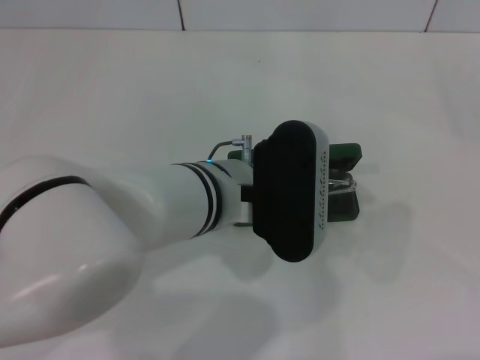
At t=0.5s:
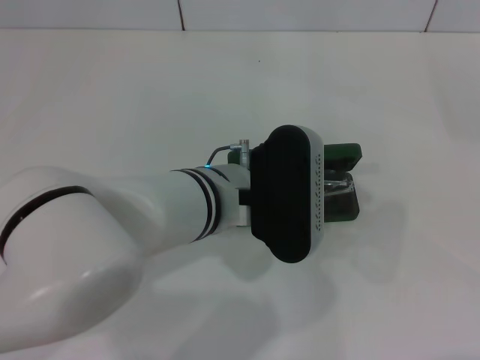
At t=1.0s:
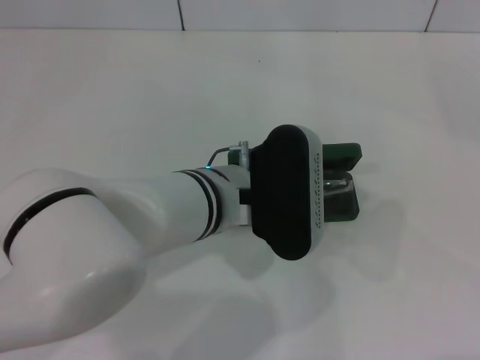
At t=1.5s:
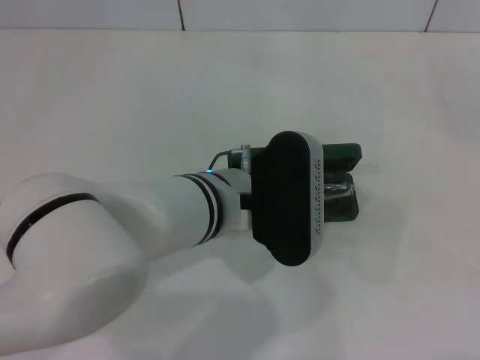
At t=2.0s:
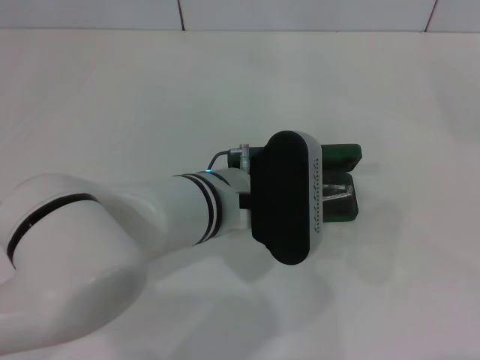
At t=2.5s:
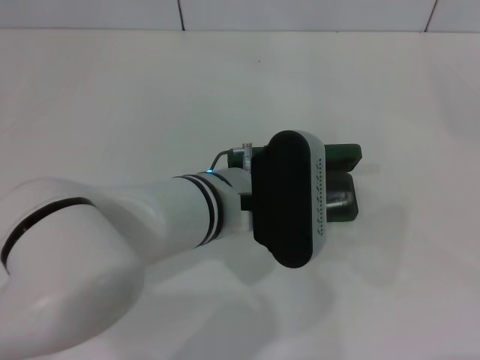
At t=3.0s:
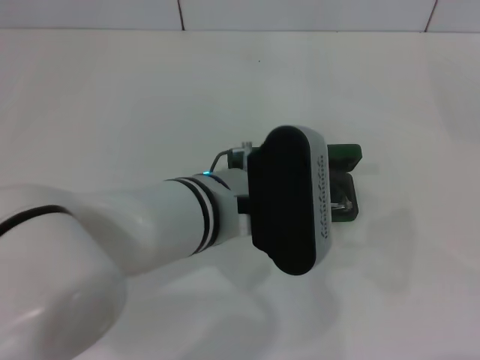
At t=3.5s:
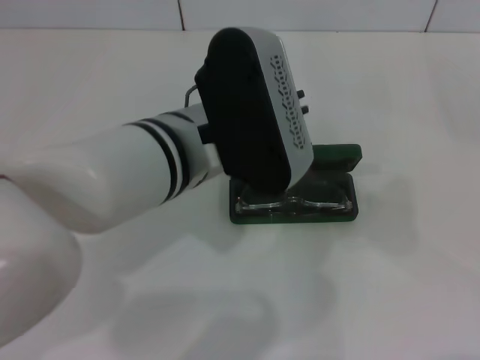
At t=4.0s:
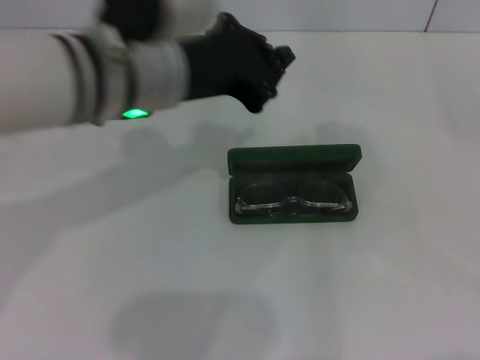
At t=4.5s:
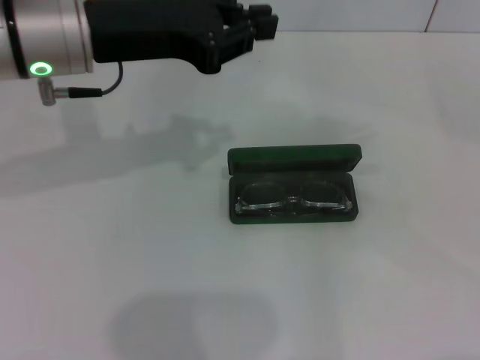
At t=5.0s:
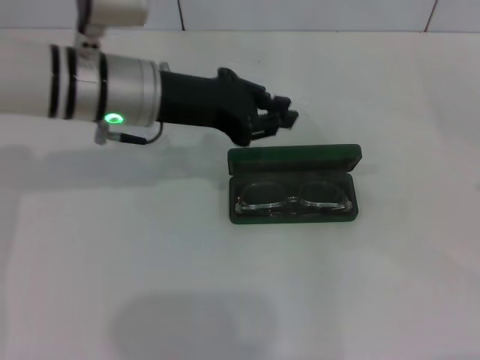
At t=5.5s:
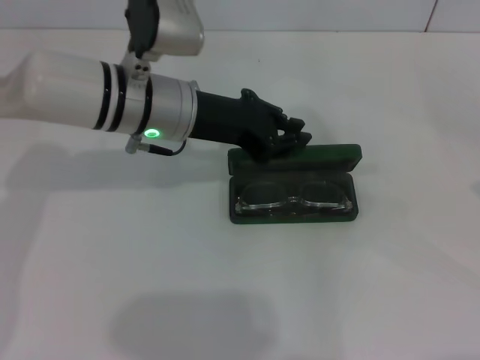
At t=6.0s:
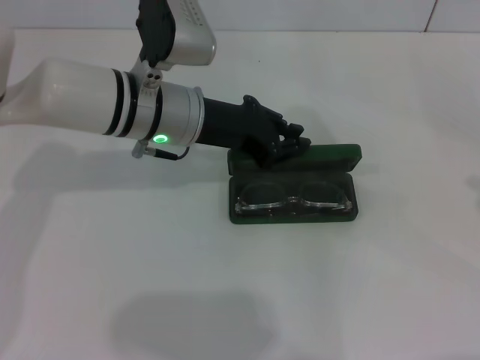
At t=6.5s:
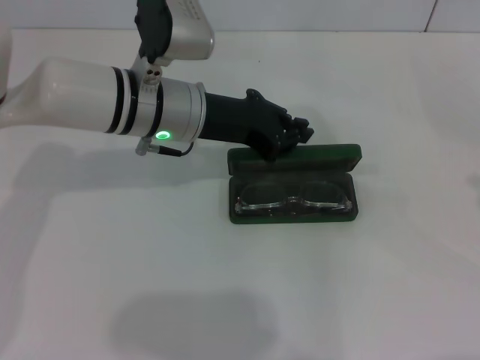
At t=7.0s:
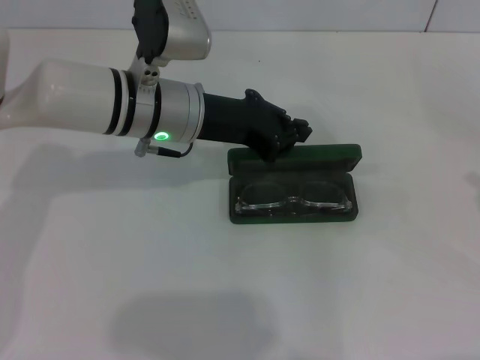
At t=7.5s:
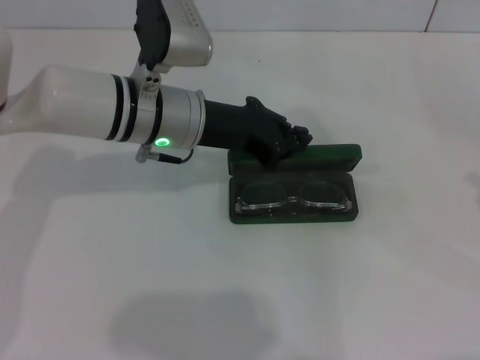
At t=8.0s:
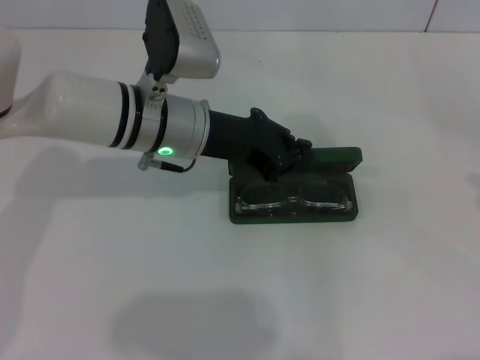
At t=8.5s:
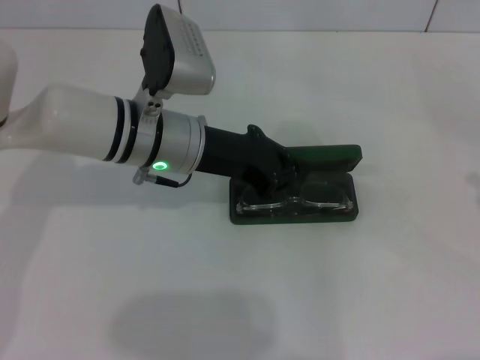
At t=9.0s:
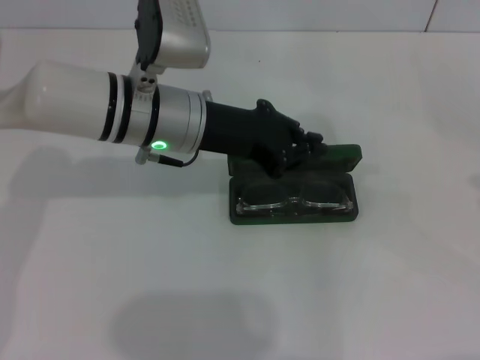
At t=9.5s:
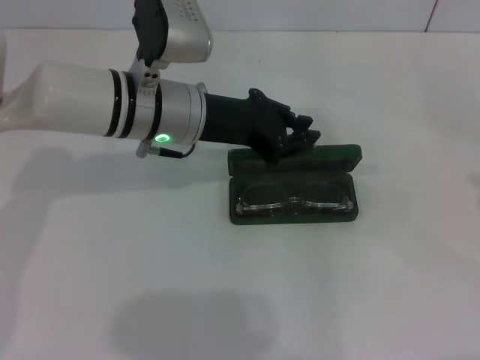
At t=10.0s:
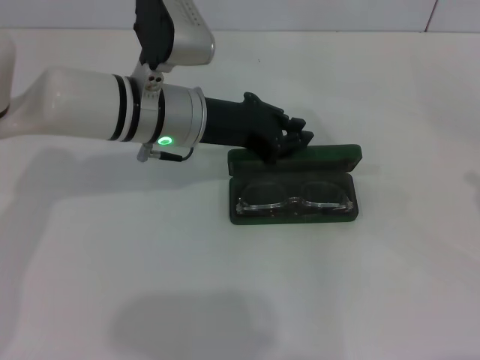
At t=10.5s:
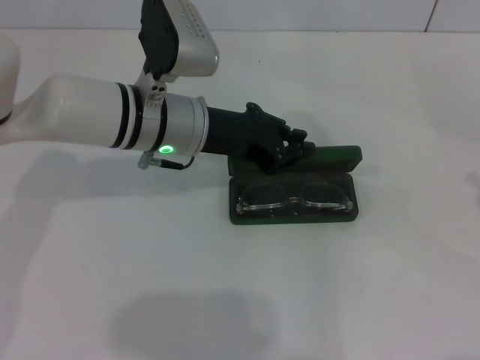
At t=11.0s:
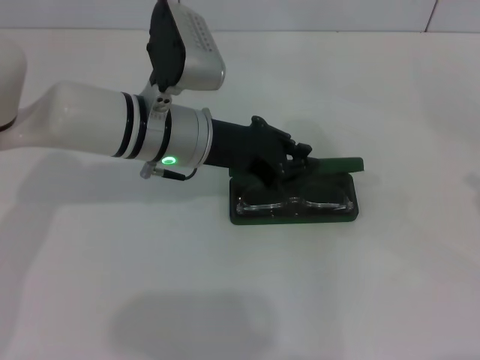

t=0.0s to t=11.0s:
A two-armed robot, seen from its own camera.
Step, t=0.0s to t=2.5s: Put the glasses into the case with your left hand.
t=0.0s to t=2.0s: There are only small adjustments of the grippers.
t=2.0s to t=3.5s: The left gripper heads upward, covering roughly 5 cm.
t=3.5s to t=5.5s: The left gripper is displaced forward by some 10 cm.
t=5.5s to t=11.0s: The grippers stay close to where they were, moving slightly.

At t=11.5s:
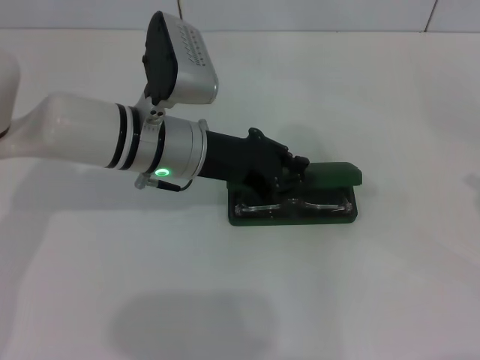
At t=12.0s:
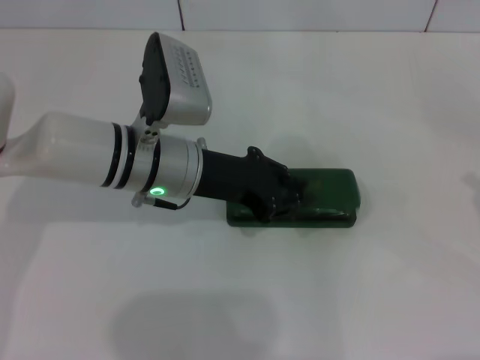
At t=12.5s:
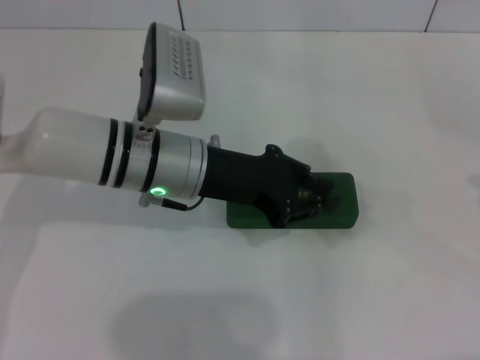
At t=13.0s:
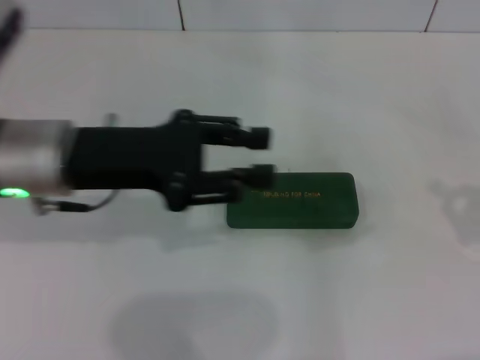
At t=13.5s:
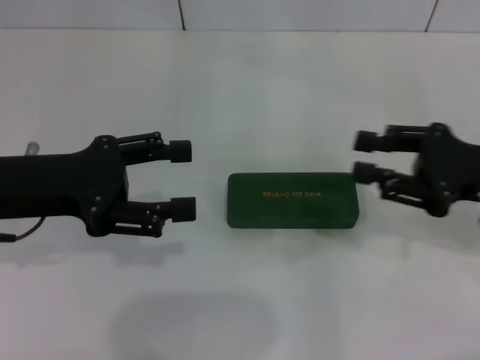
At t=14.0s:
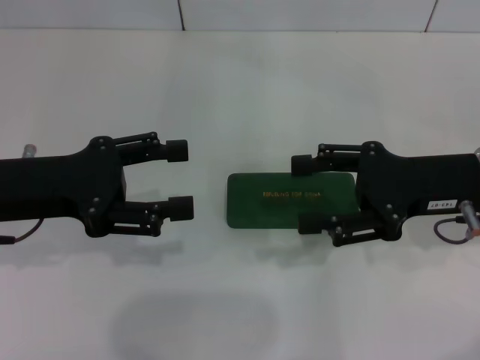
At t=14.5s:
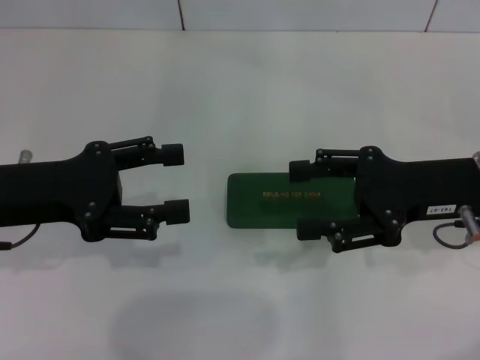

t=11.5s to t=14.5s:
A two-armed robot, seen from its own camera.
t=11.5s to t=13.0s: The left gripper goes roughly 10 cm to the left and backward.
t=13.0s to t=14.5s: The right gripper moves to the left and forward, about 20 cm, and opens up, while the left gripper travels to the left by some 5 cm, and opens.
